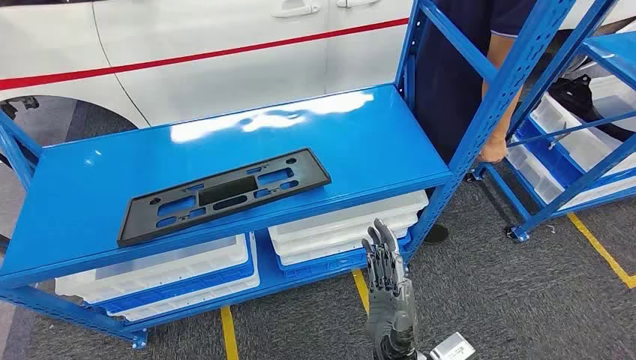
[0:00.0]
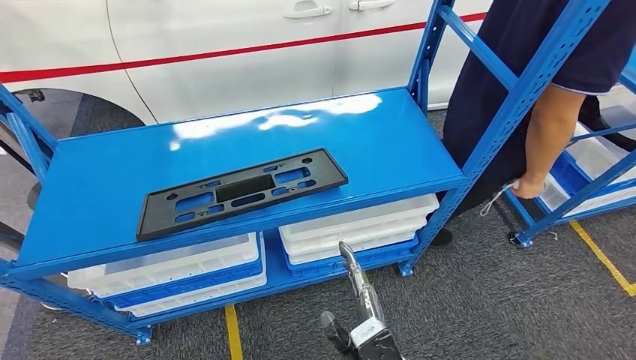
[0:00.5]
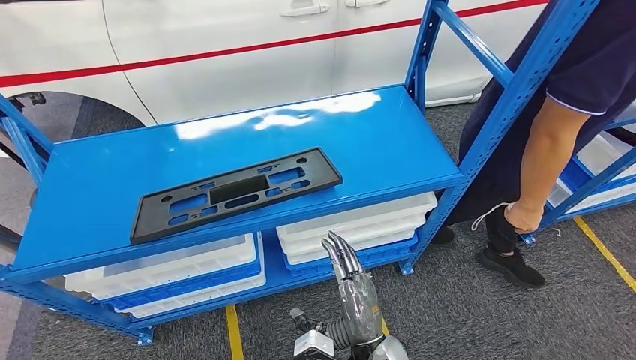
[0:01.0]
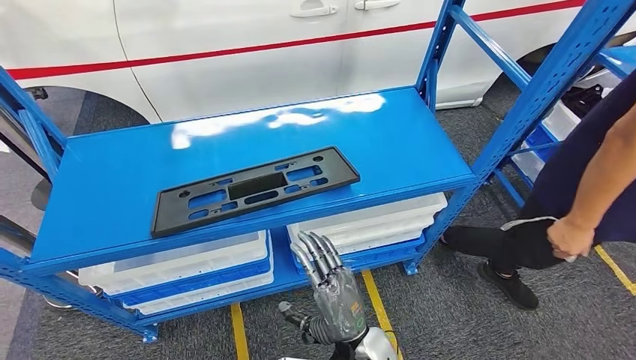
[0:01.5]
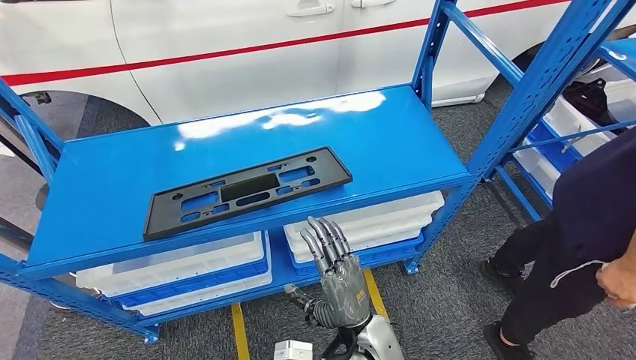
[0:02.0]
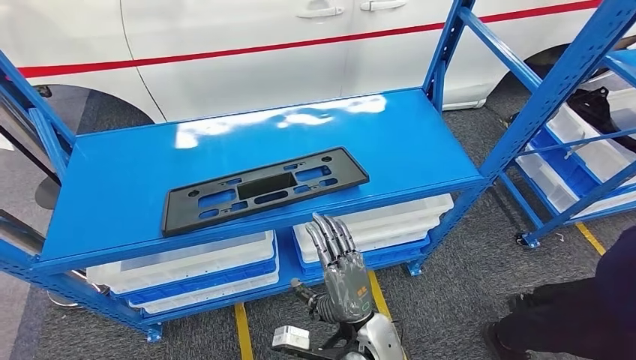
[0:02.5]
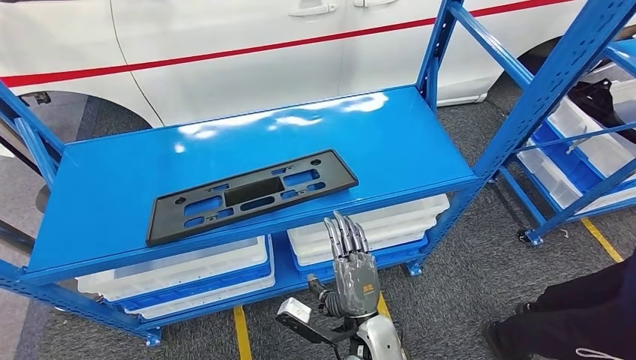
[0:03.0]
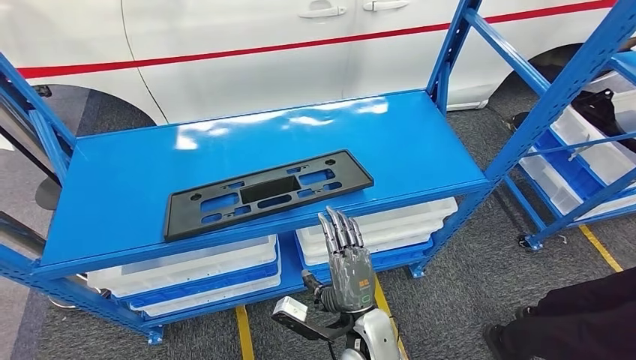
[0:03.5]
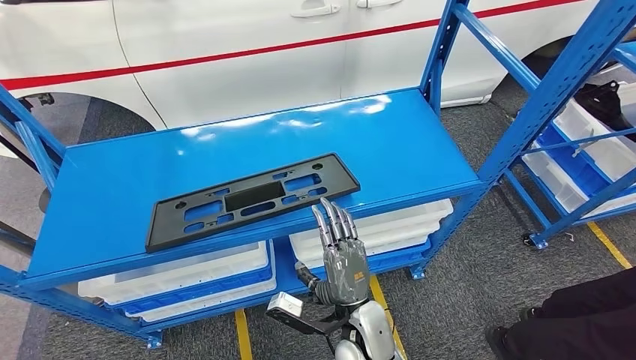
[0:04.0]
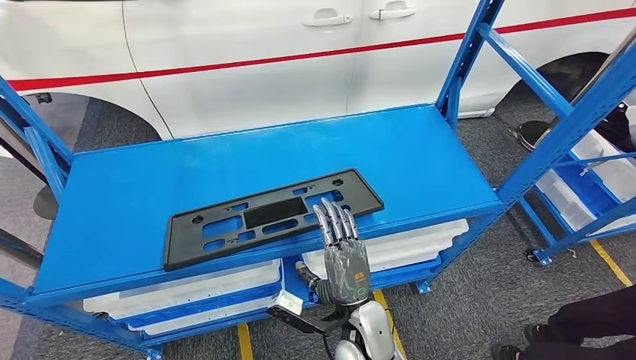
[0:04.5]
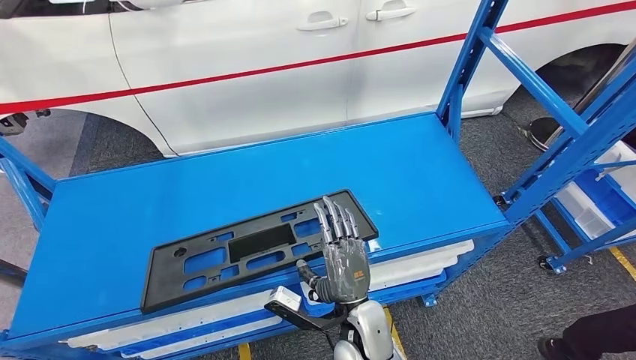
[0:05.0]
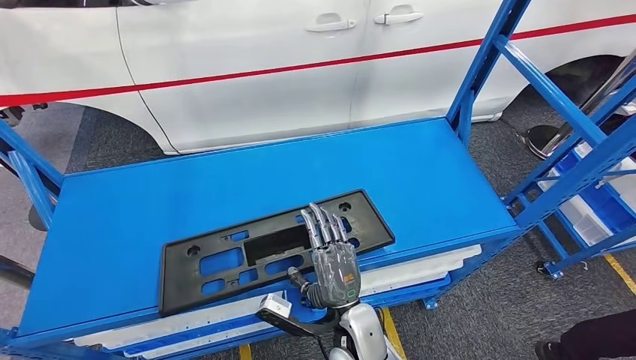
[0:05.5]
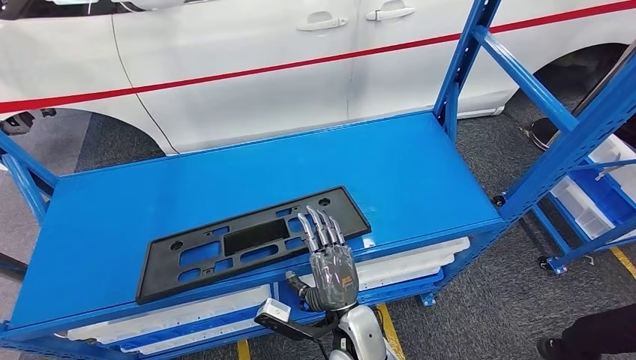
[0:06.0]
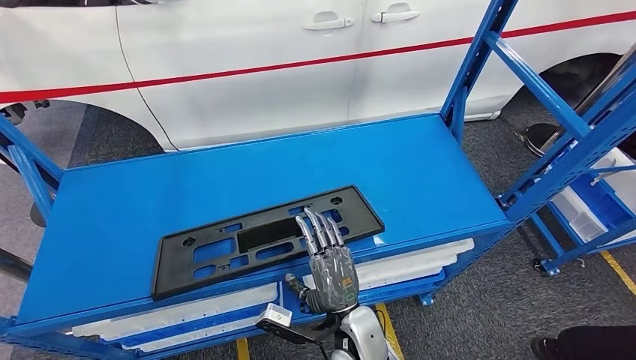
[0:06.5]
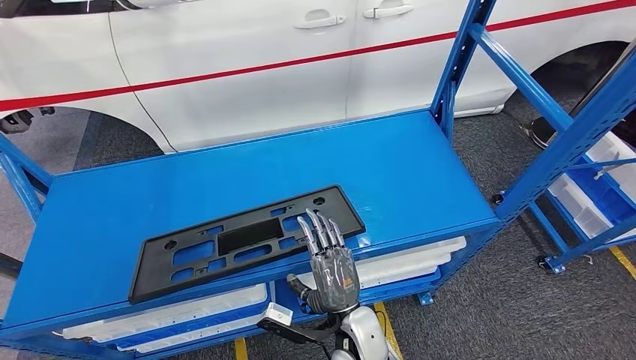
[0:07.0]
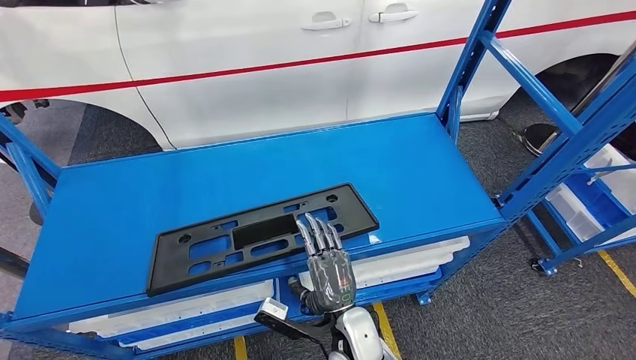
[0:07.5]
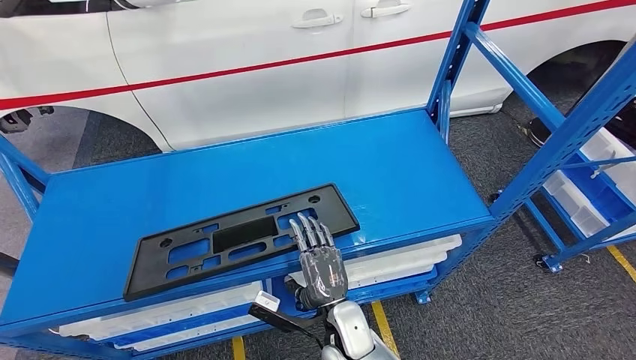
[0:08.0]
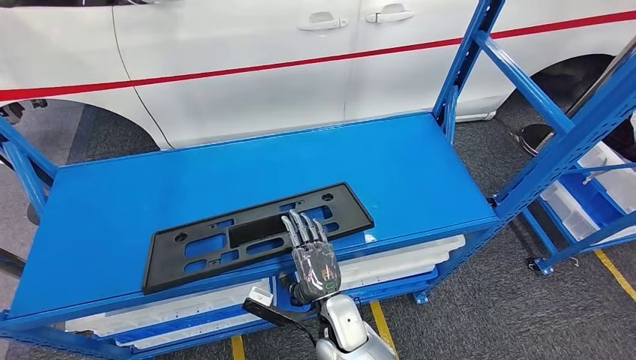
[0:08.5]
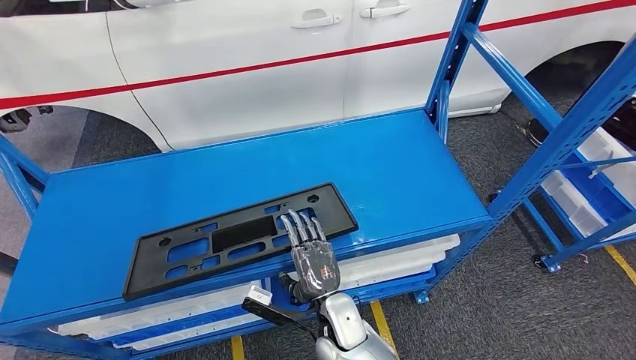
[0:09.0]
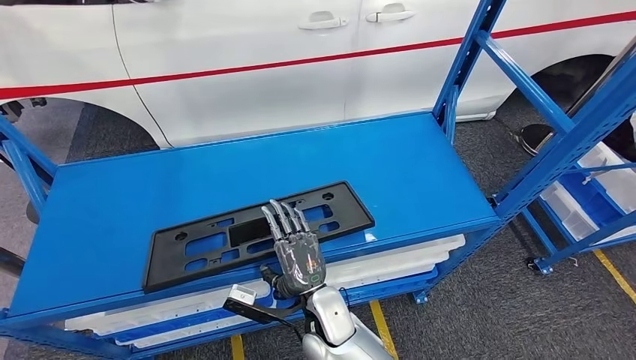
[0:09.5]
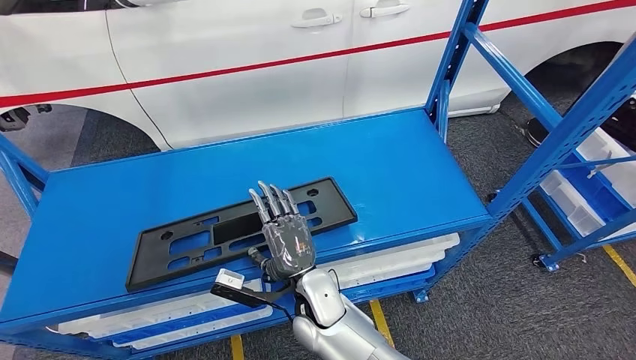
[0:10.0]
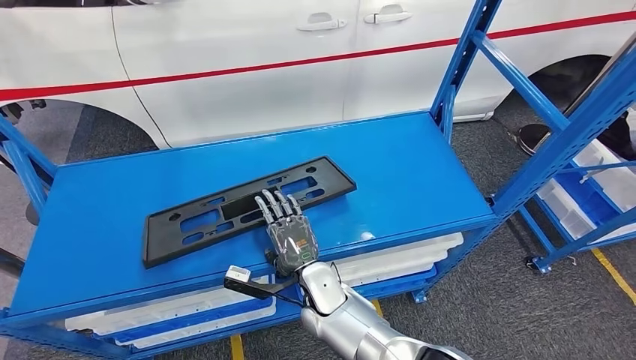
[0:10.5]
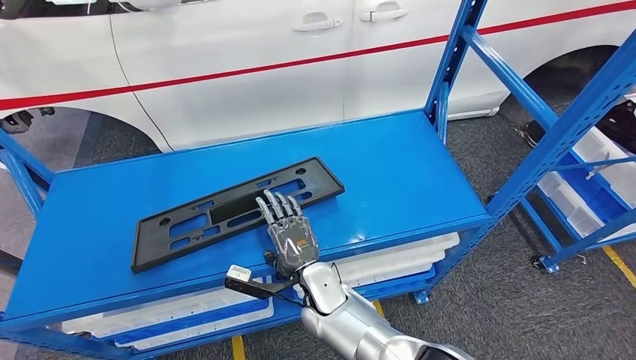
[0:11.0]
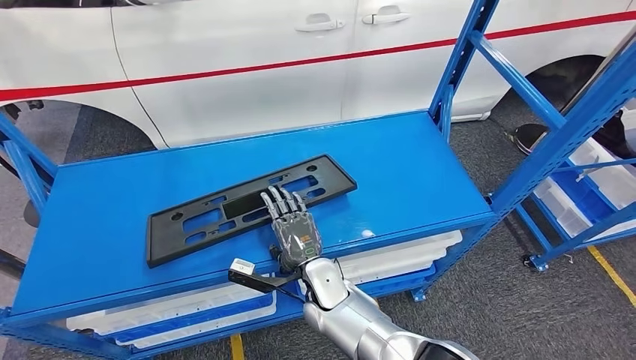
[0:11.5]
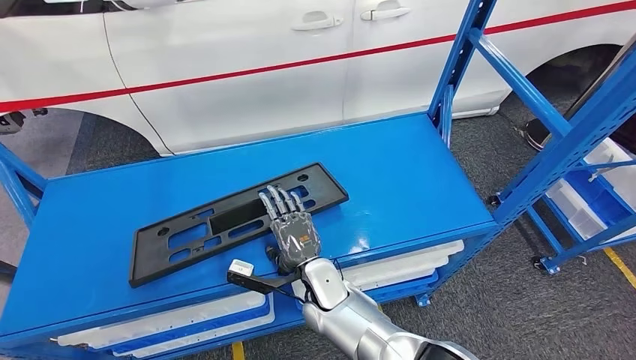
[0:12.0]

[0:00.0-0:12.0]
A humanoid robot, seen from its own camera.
0:08.0 to 0:10.0: The right hand goes approximately 5 cm upward and forward.

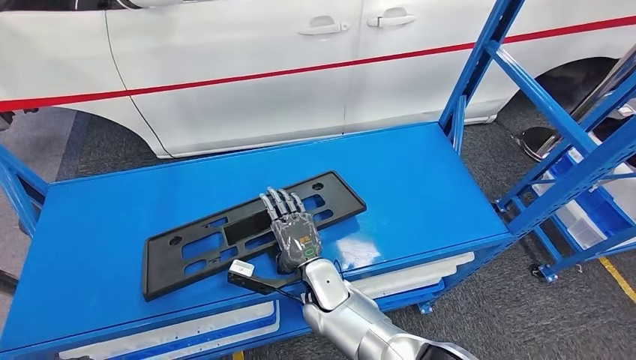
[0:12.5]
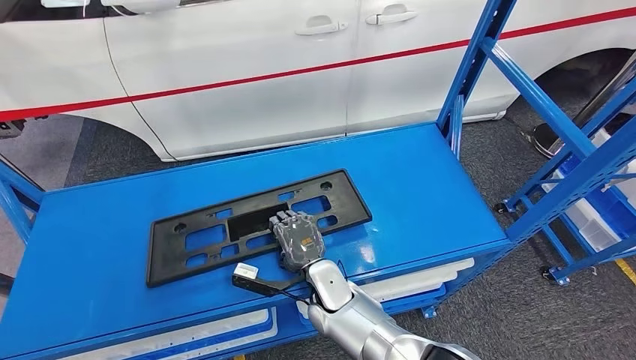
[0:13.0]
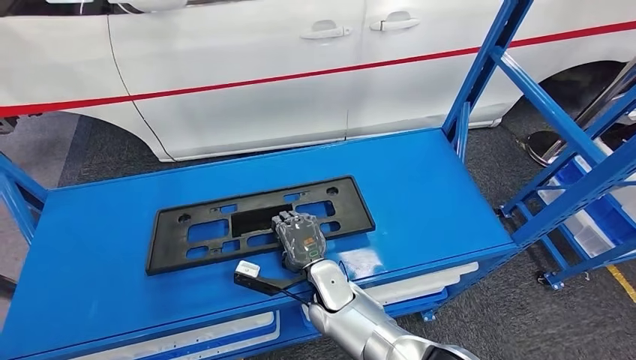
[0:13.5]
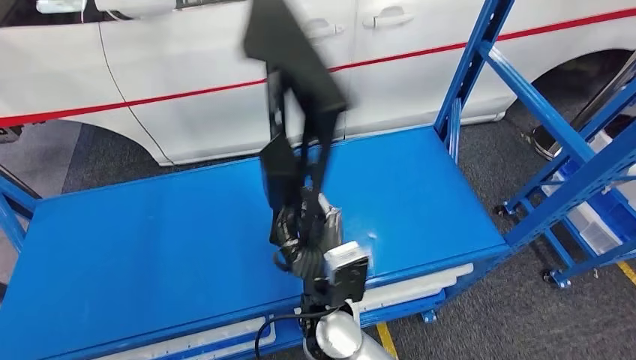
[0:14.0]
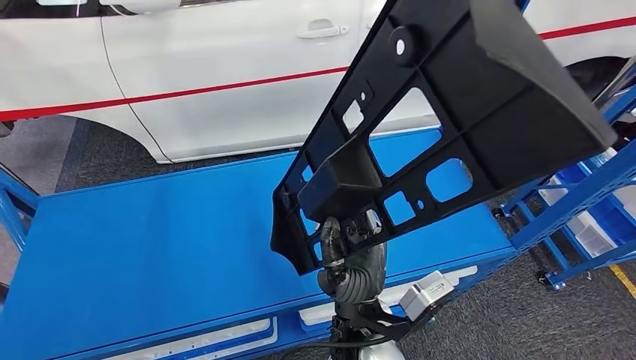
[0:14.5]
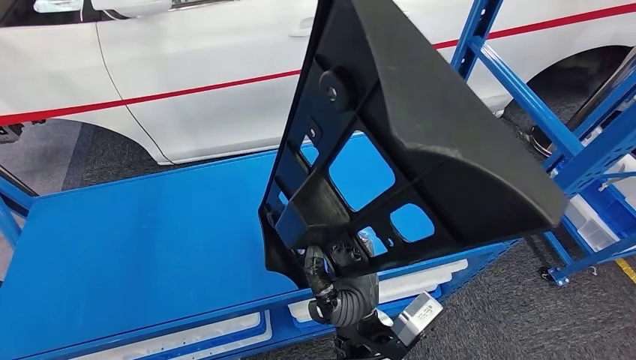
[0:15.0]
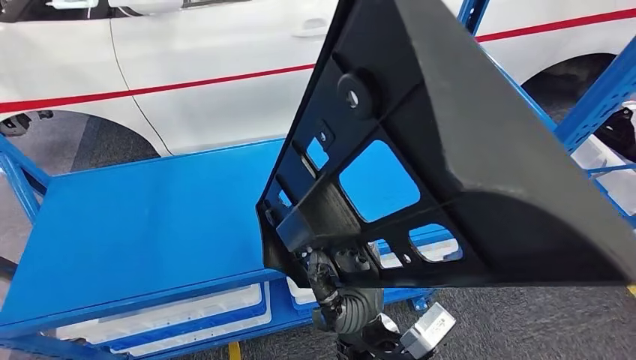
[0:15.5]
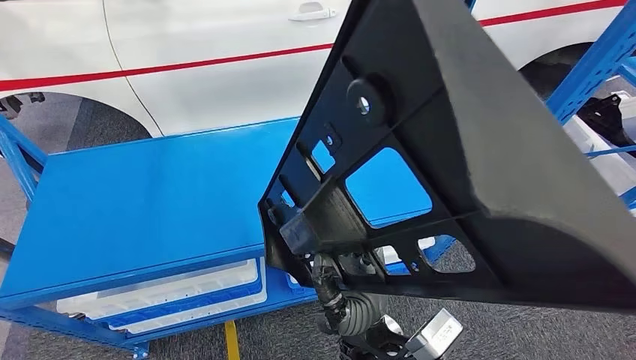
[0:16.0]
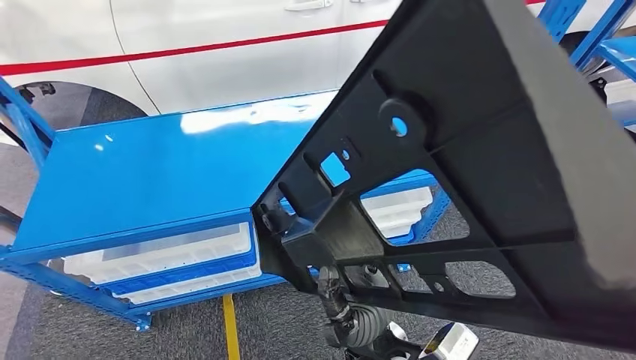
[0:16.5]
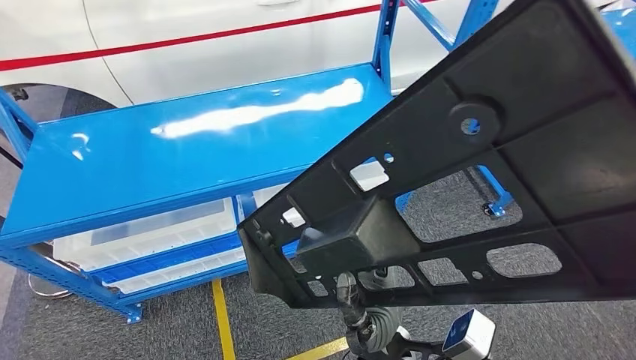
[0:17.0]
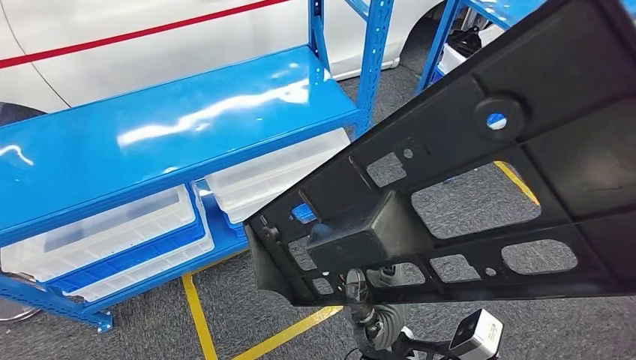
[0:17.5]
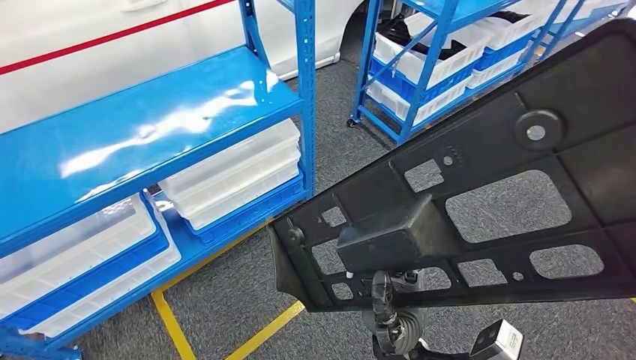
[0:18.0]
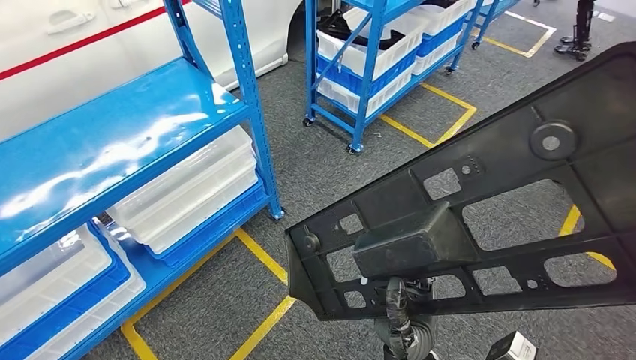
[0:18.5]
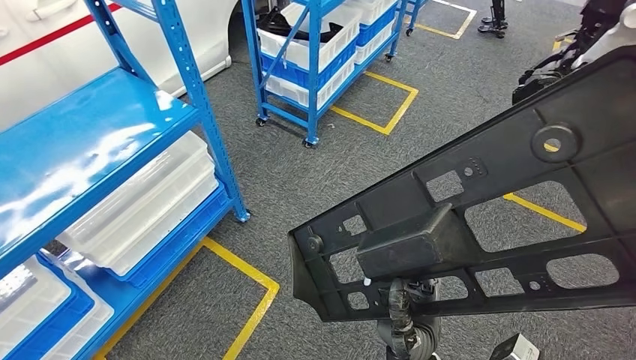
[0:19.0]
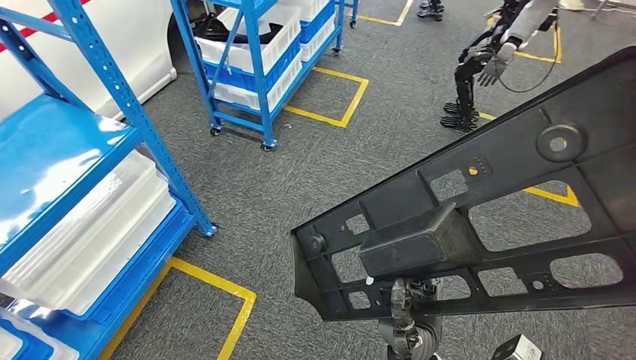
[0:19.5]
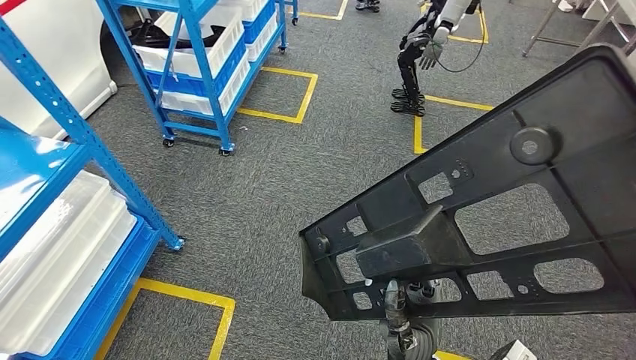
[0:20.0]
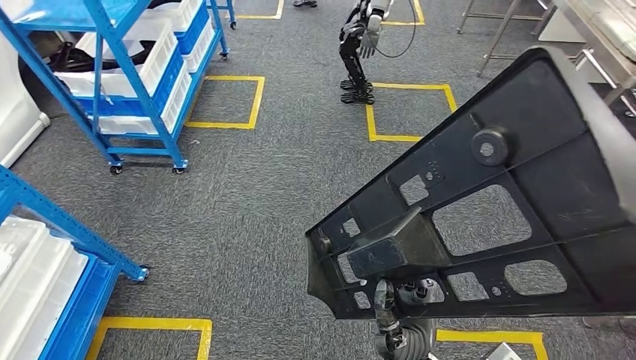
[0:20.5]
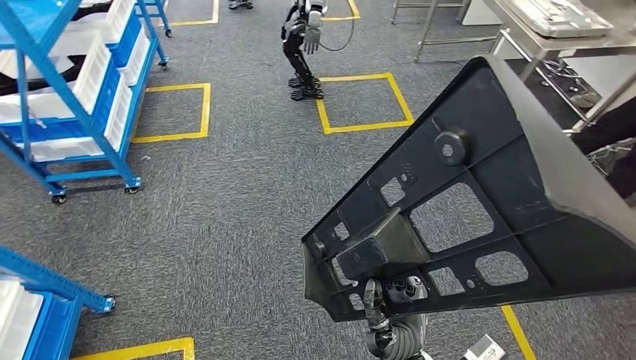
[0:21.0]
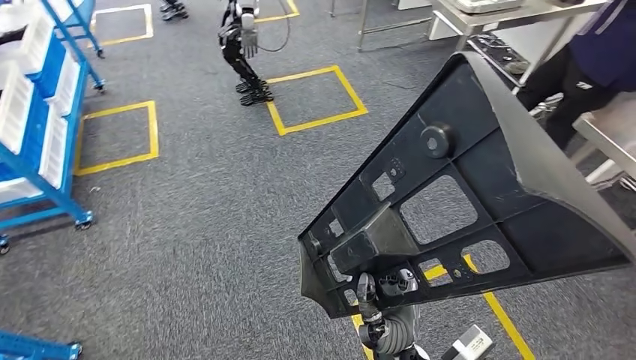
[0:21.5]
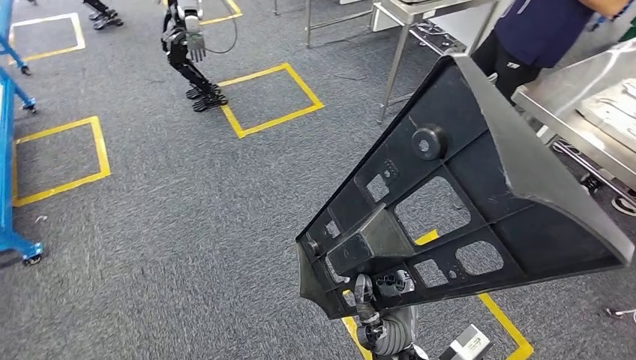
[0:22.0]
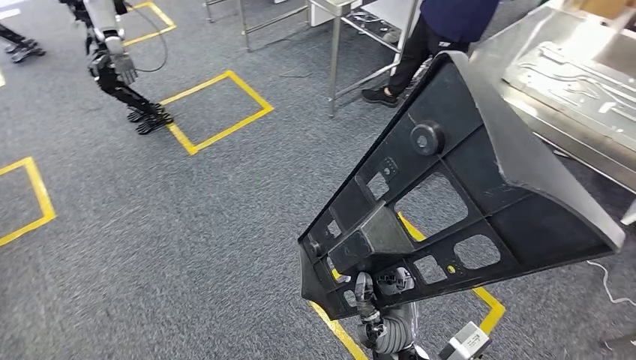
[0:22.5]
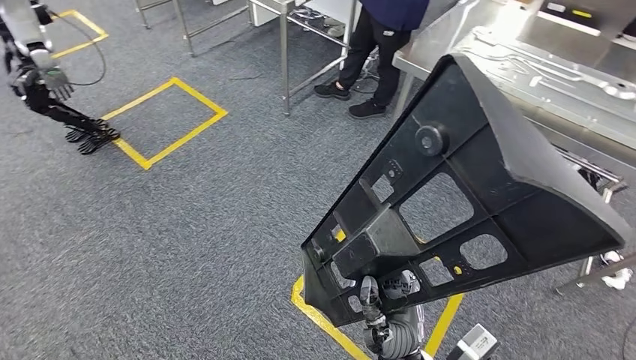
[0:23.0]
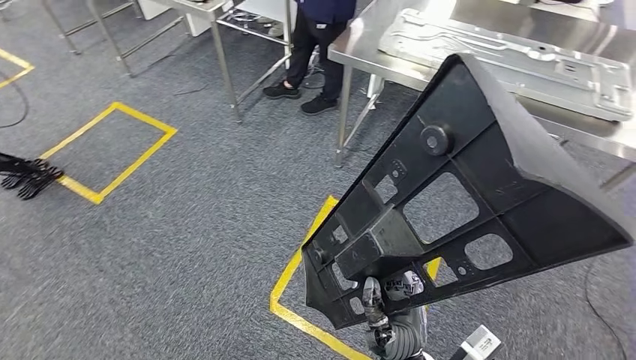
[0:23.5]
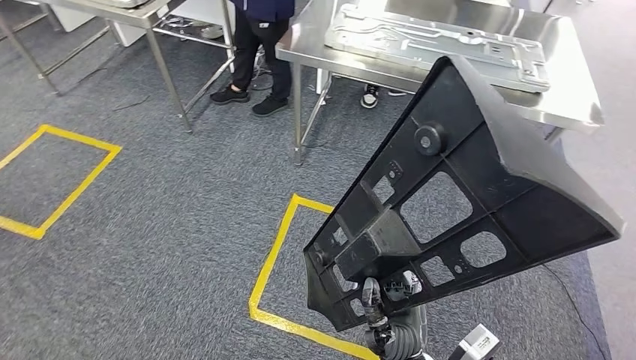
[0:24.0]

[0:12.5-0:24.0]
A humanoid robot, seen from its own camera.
Step, 0:12.5 to 0:16.5: Pick up the large material from the shelf.
